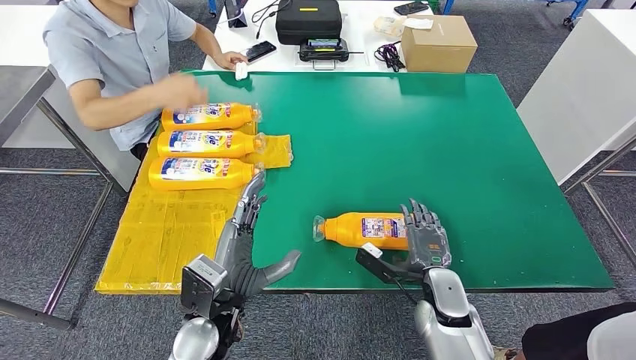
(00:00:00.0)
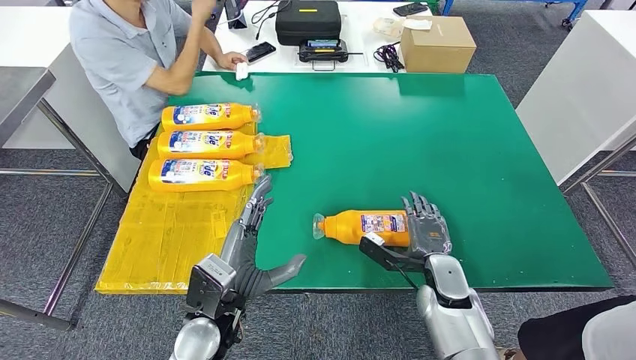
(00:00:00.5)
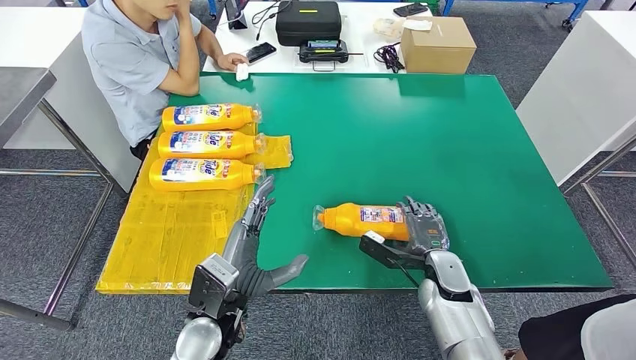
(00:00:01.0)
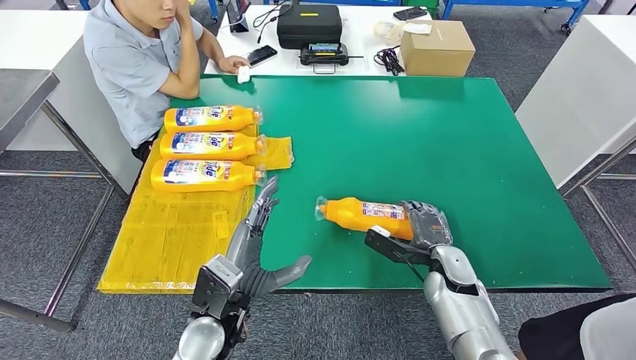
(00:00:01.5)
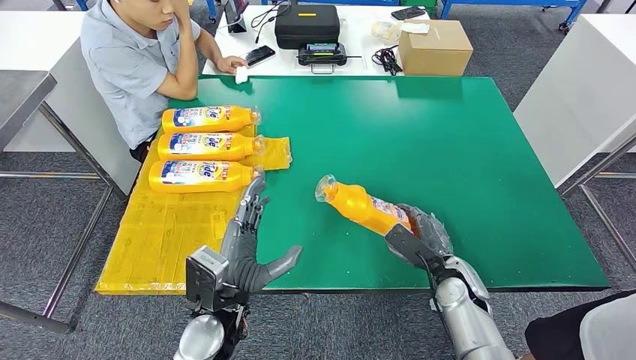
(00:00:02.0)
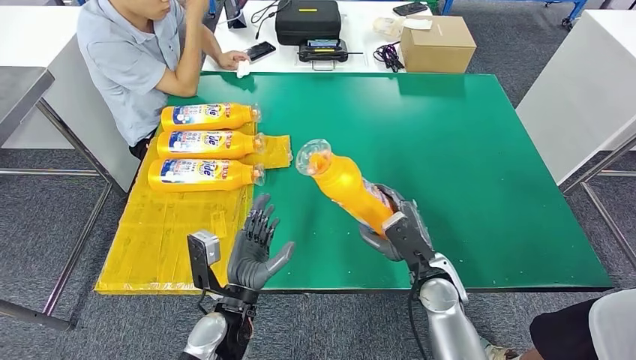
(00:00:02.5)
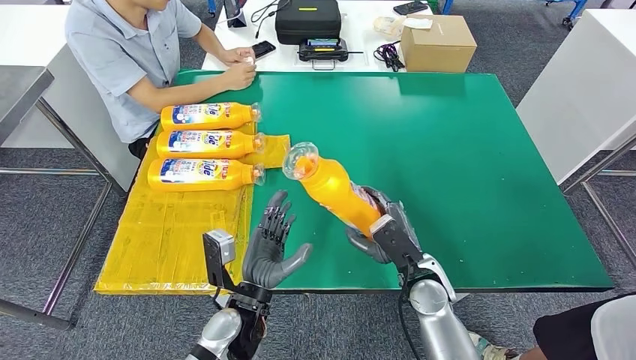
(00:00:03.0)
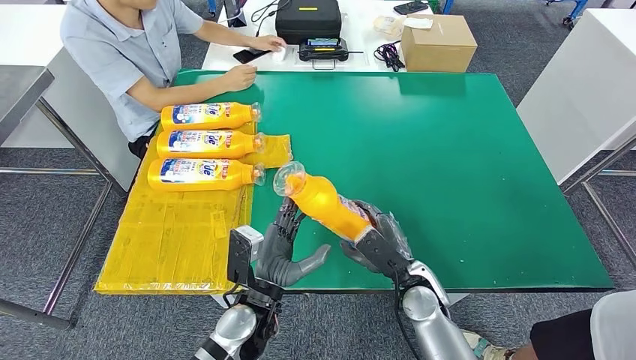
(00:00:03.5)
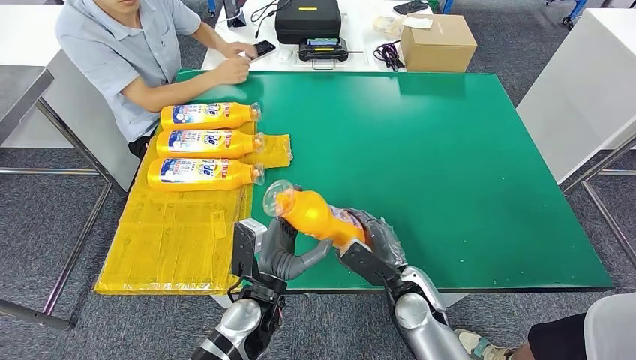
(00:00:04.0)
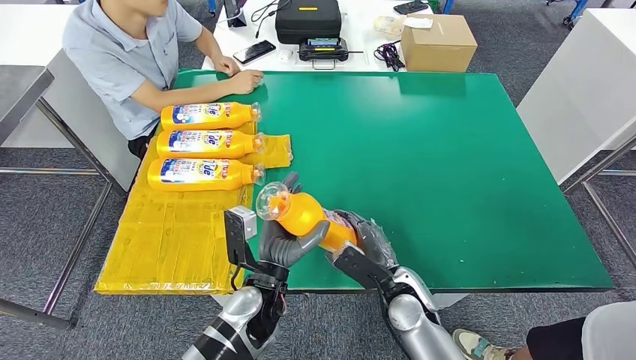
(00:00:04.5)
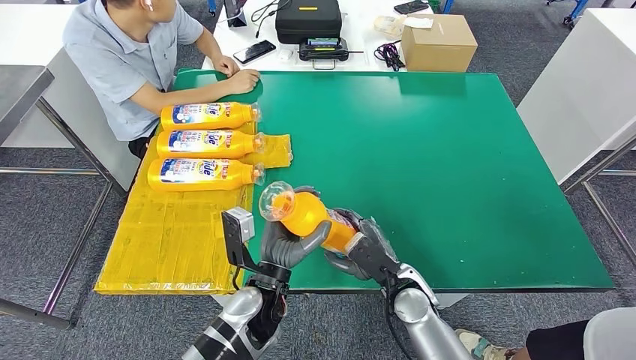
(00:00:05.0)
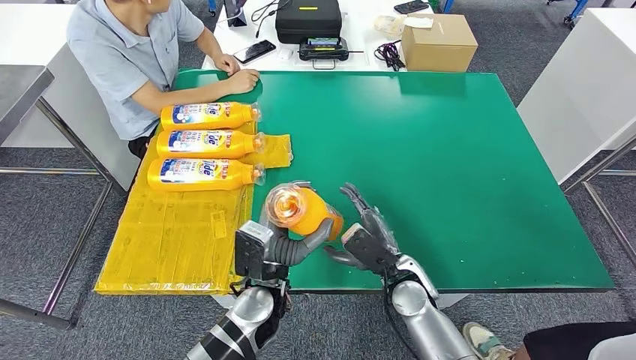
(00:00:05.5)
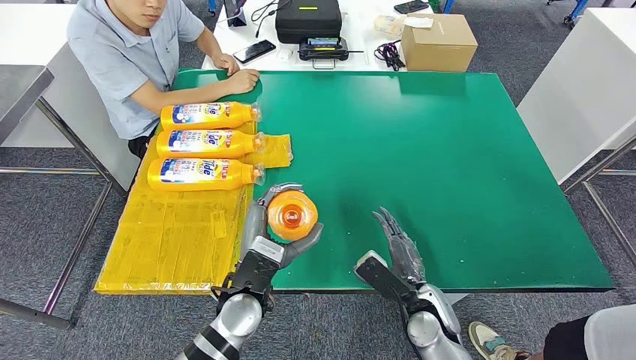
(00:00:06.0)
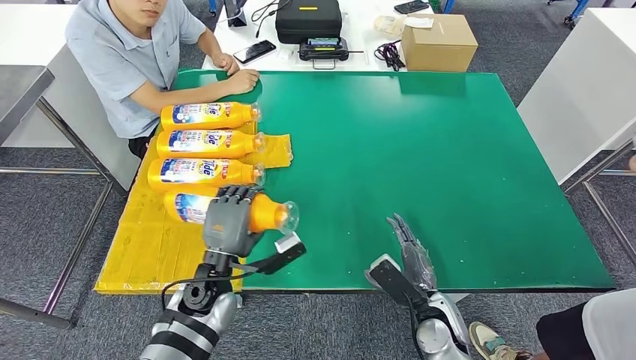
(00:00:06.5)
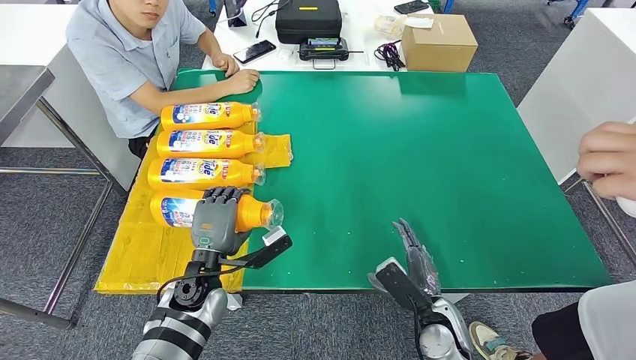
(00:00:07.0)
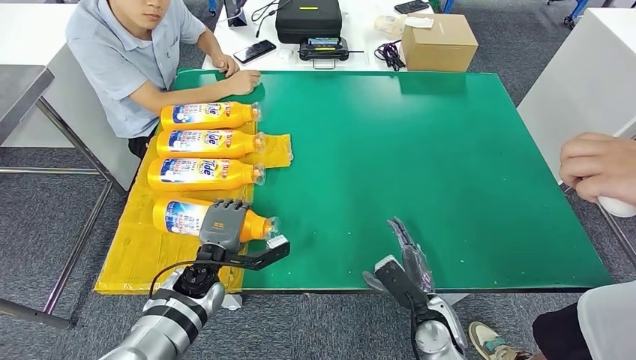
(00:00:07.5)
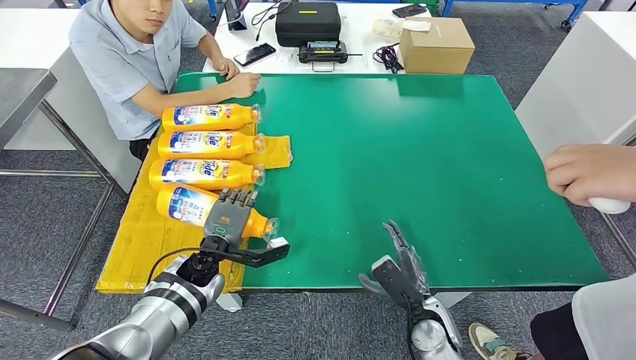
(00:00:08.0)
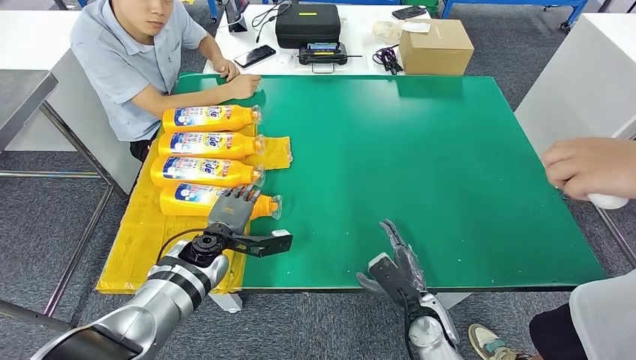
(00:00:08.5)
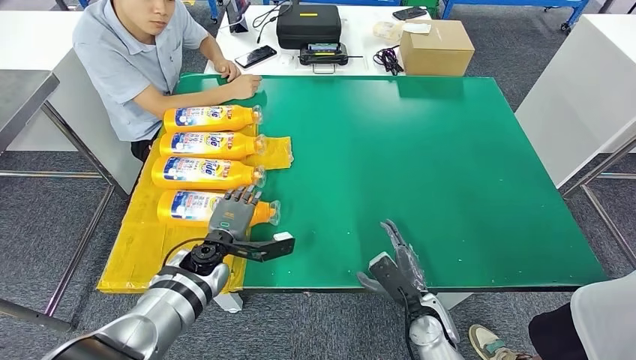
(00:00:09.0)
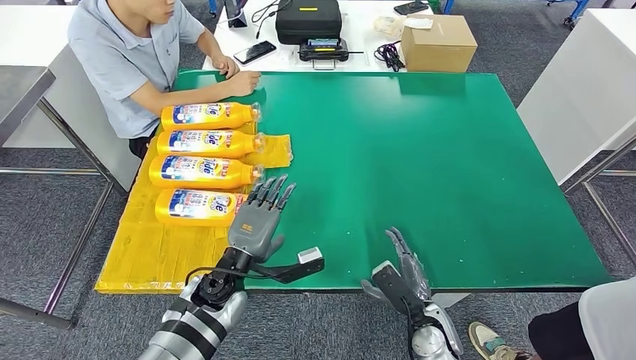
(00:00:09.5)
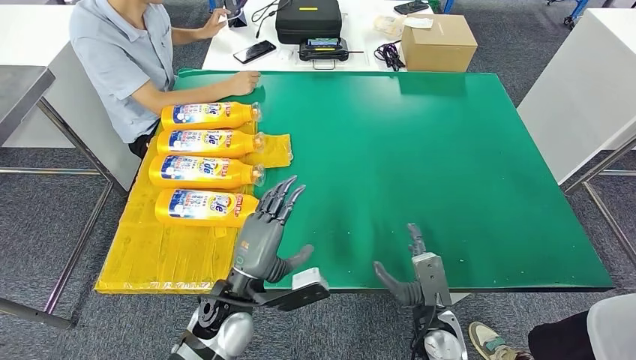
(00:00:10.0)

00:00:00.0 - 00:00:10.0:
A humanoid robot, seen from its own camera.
Step, 00:00:00.0 - 00:00:03.0: Pick up the fast-moving consumer goods bottle from the table.
Step, 00:00:03.5 - 00:00:10.0: Flip the fast-moving consumer goods bottle to the front side.
